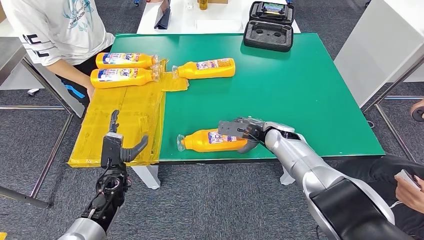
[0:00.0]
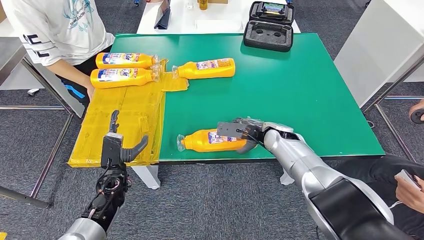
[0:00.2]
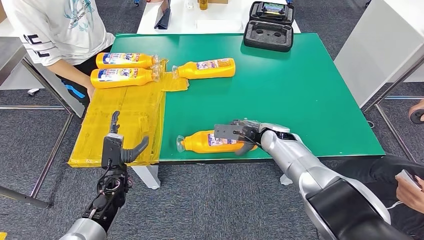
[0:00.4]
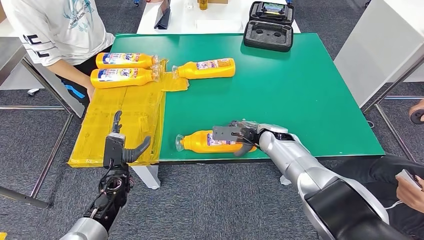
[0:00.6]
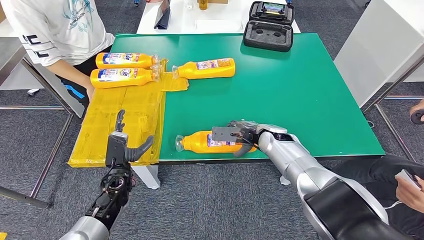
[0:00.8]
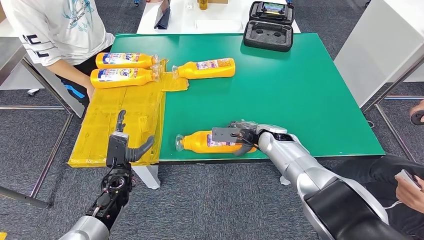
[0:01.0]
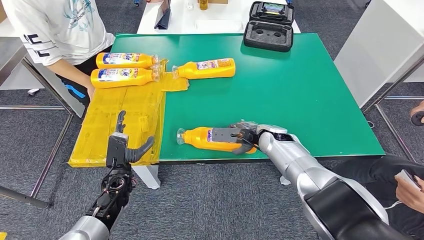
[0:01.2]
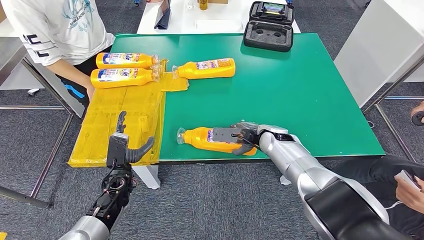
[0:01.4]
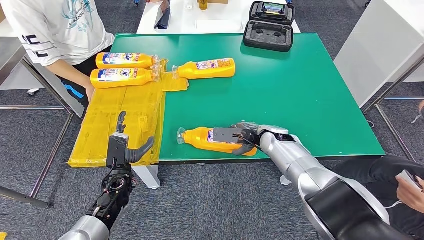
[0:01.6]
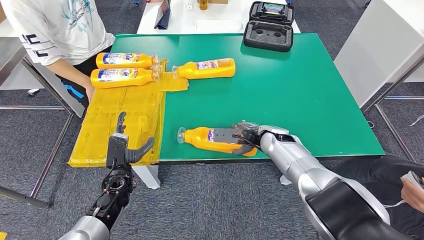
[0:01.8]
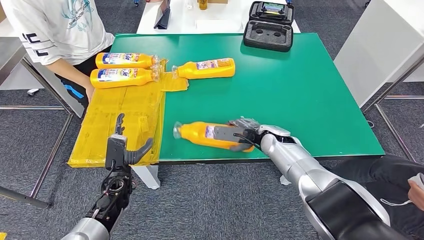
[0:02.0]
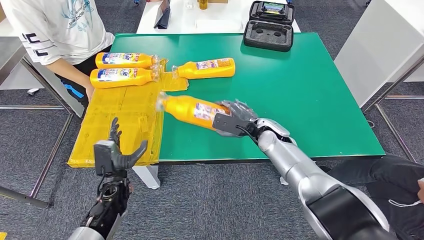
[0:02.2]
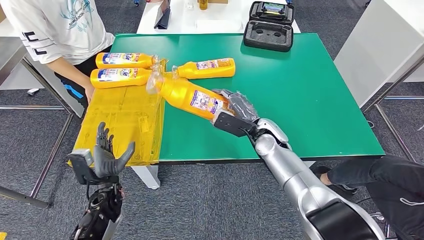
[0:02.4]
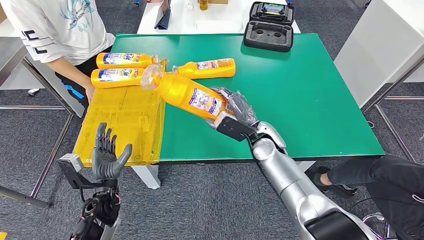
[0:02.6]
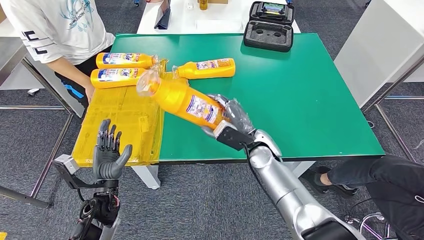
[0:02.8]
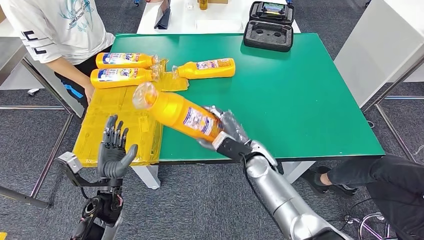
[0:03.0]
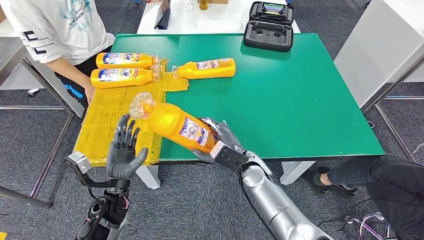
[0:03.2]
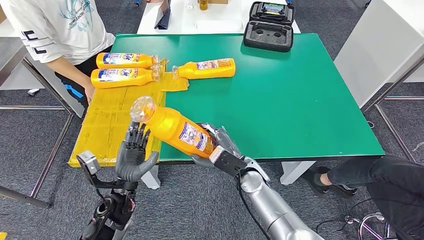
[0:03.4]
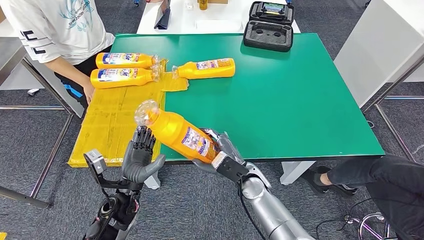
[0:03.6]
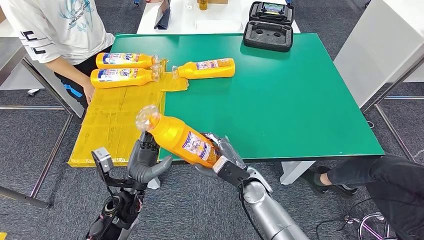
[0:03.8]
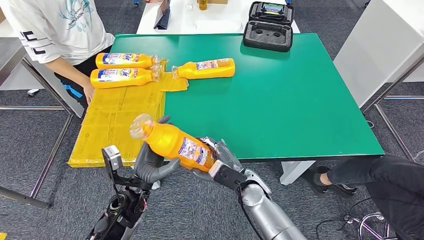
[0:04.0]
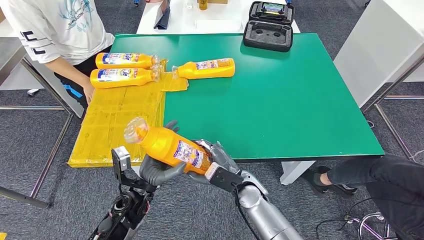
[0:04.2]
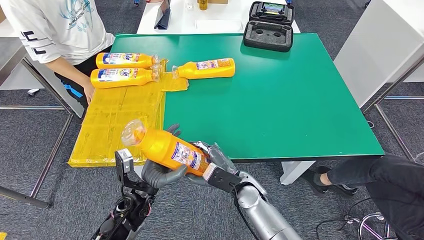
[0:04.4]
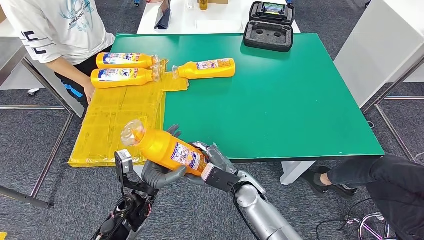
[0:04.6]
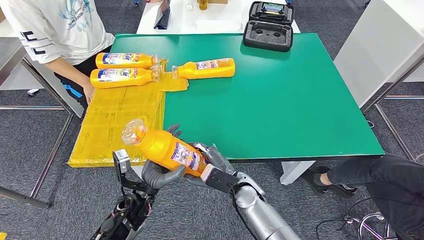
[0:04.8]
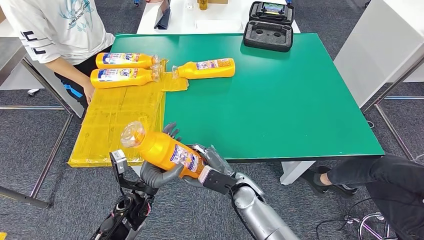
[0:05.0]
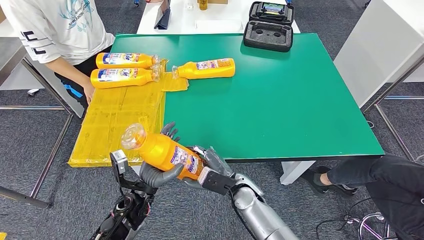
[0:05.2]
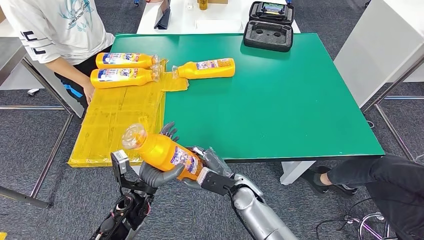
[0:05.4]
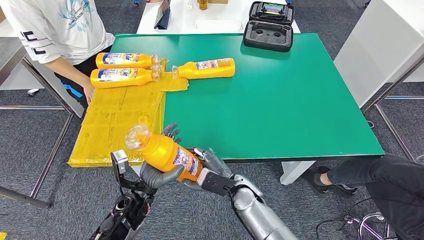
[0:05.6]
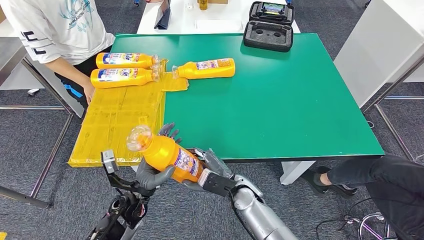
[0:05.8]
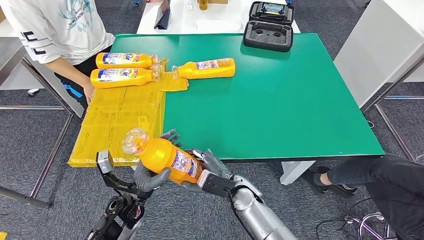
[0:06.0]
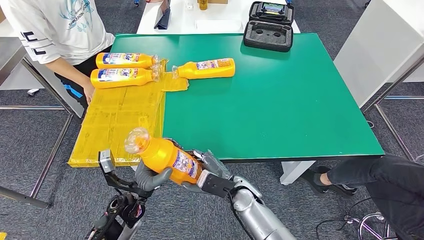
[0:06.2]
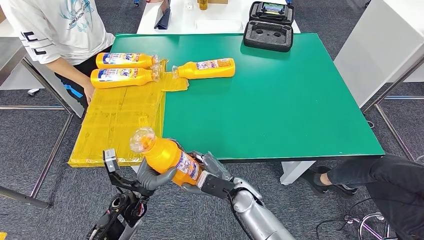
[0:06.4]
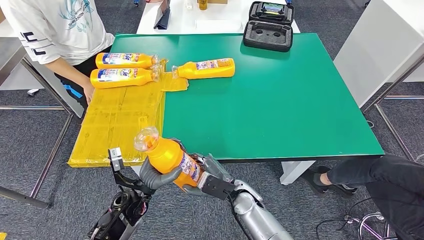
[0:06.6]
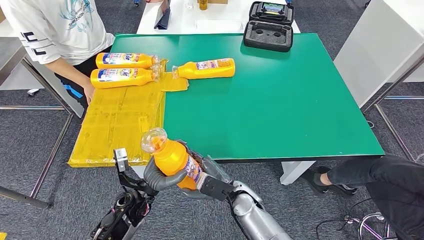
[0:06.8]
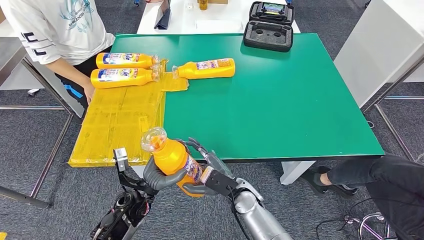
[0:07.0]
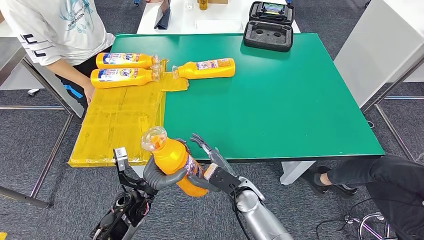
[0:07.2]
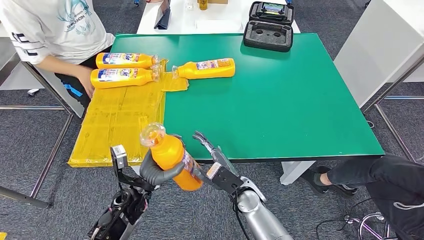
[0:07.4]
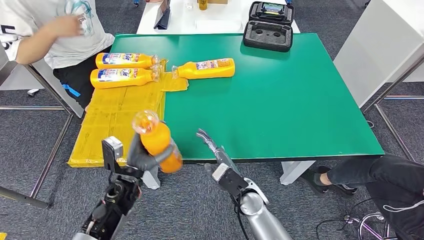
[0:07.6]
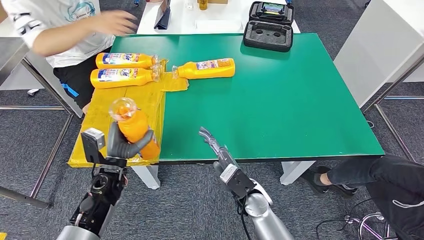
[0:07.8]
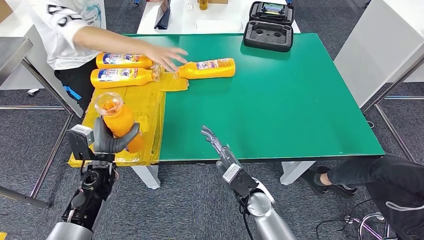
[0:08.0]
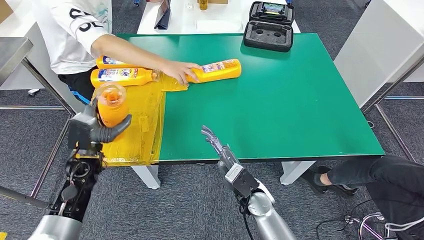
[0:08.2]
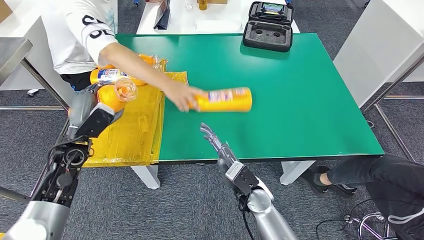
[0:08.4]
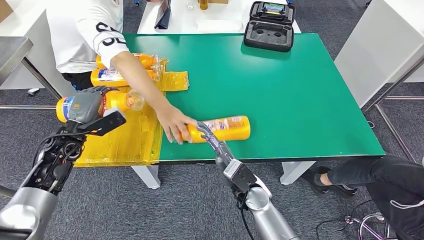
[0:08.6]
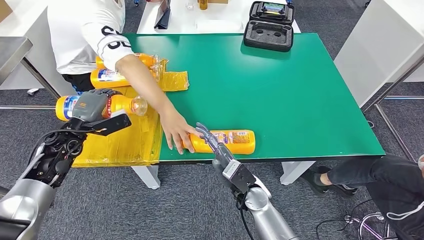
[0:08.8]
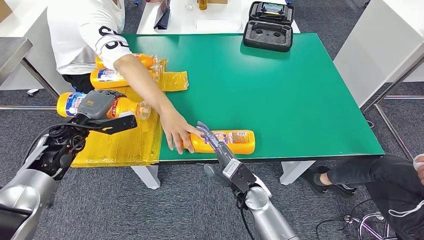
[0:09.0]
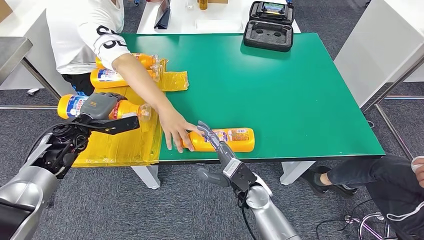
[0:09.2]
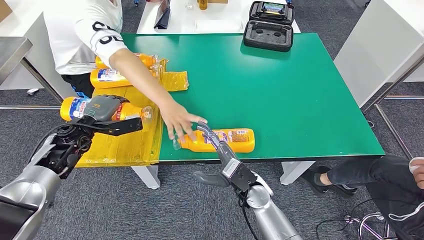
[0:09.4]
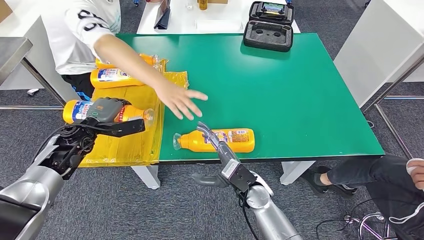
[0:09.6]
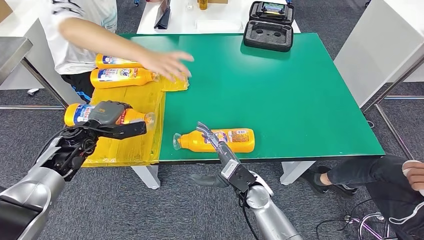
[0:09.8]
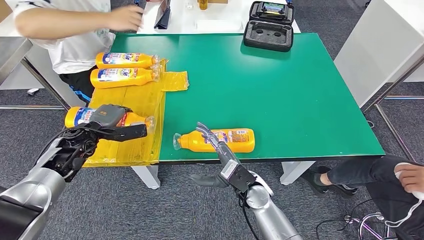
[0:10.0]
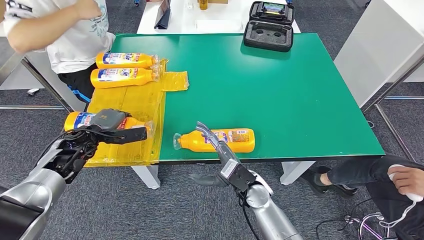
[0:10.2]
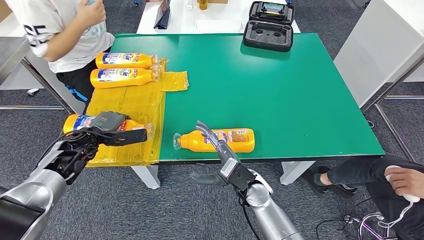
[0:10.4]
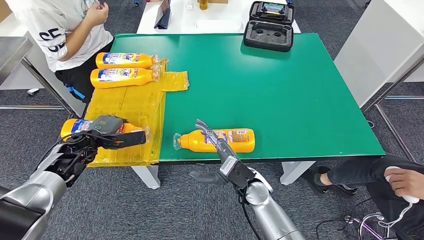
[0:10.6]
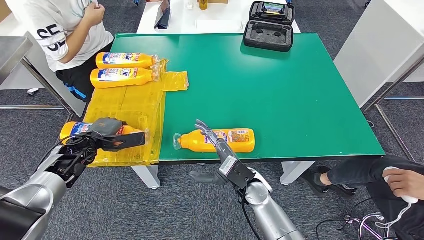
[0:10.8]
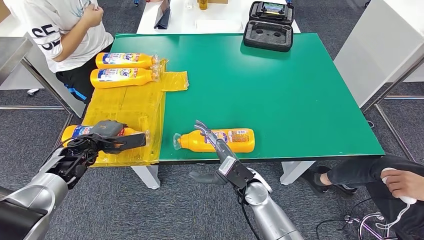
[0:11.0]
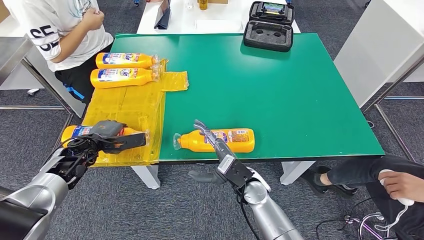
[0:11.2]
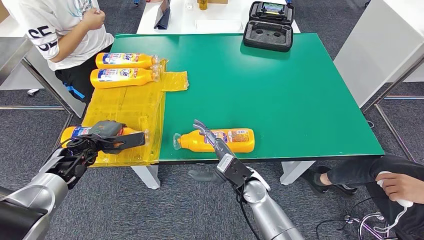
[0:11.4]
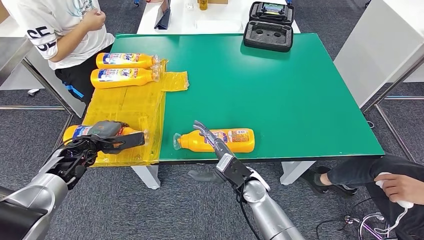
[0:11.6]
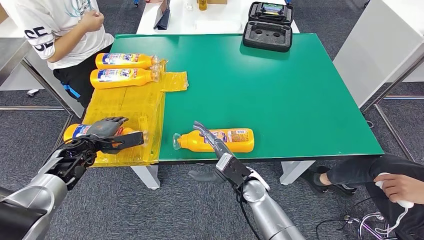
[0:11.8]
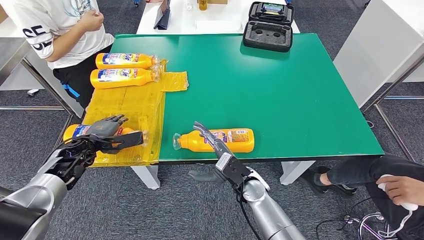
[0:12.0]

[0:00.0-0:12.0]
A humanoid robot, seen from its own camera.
Step, 0:00.0 to 0:03.6: Pick up the bottle from the table.
Step, 0:03.8 to 0:10.8: Flip the bottle to face forward.
0:00.0 to 0:01.6: The hands make only small movements.
0:01.6 to 0:03.0: The right hand moves backward and to the left, approximately 10 cm. Meanwhile the left hand is displaced backward by some 5 cm.
0:03.0 to 0:04.4: The right hand goes roughly 10 cm backward and downward, while the left hand goes some 10 cm to the right.
0:06.0 to 0:07.6: The left hand ends up some 5 cm from where it was.
0:10.4 to 0:12.0: The hands move only a little.

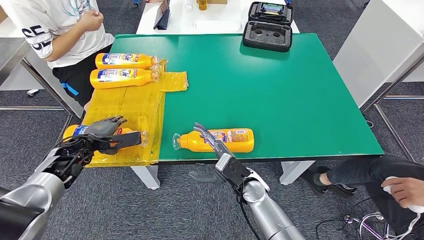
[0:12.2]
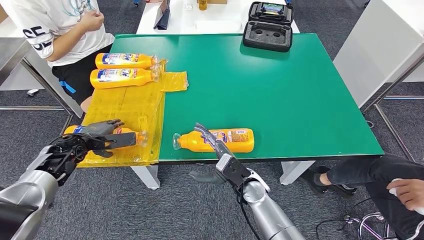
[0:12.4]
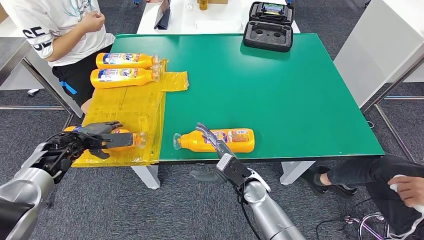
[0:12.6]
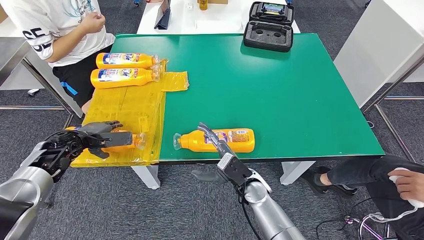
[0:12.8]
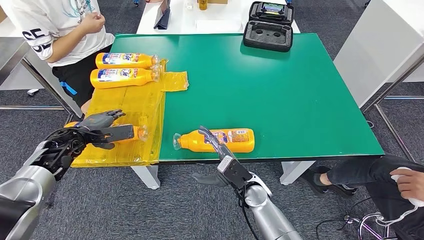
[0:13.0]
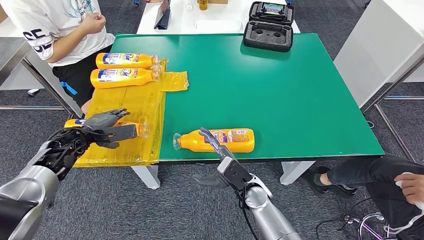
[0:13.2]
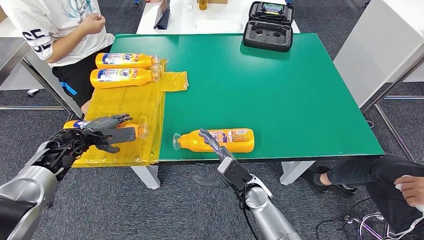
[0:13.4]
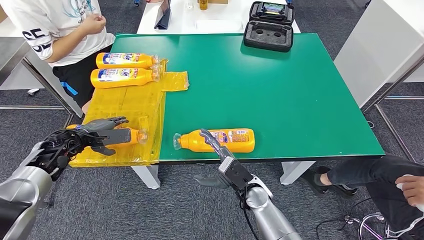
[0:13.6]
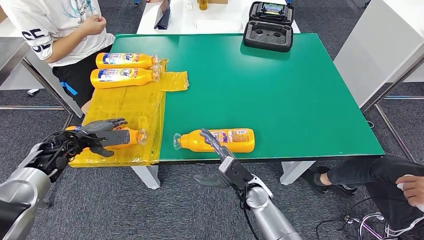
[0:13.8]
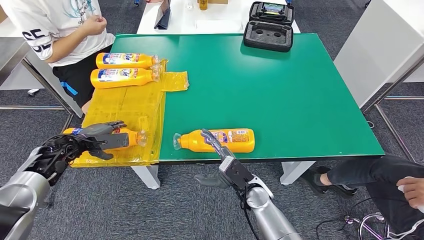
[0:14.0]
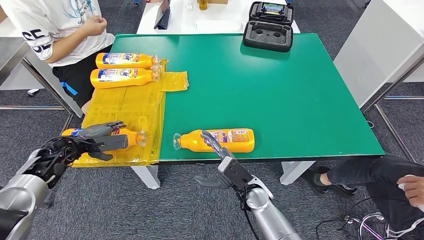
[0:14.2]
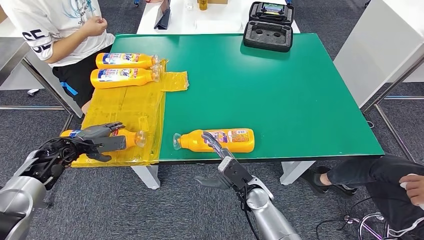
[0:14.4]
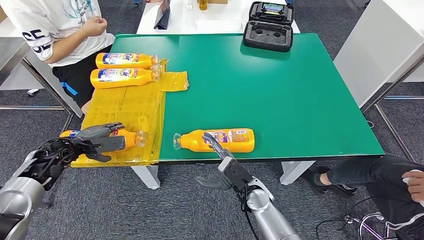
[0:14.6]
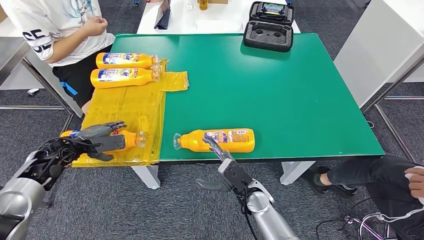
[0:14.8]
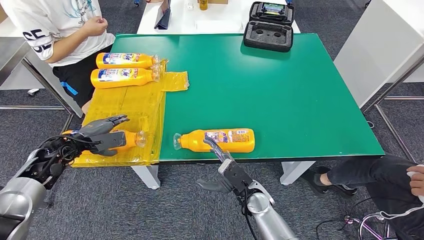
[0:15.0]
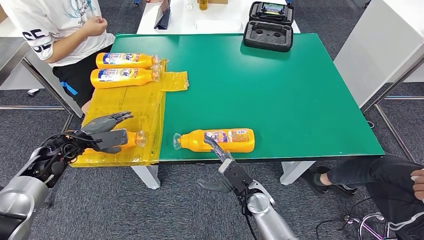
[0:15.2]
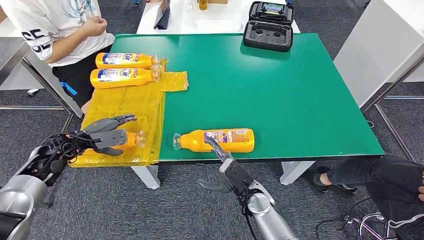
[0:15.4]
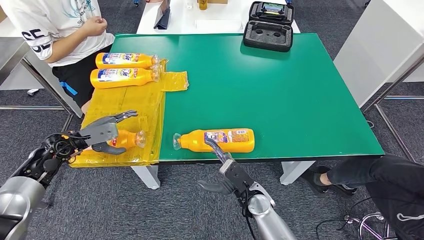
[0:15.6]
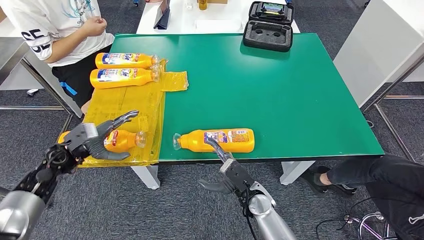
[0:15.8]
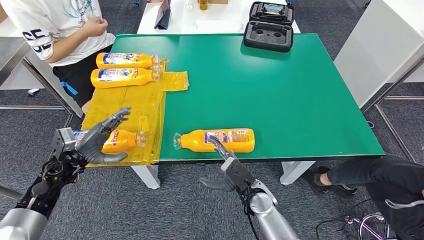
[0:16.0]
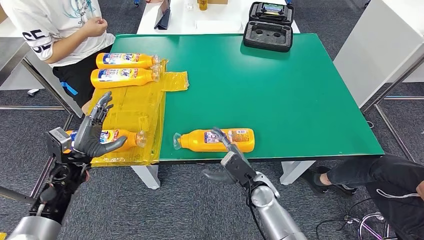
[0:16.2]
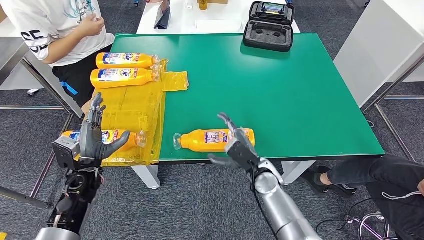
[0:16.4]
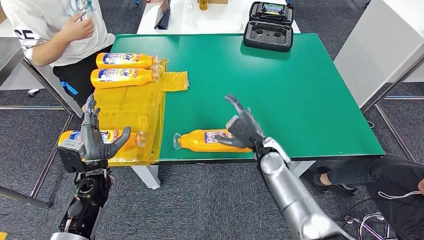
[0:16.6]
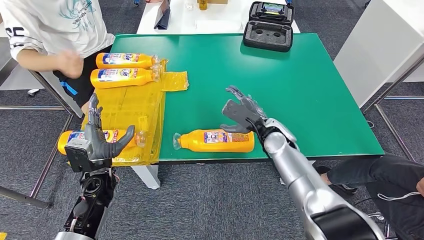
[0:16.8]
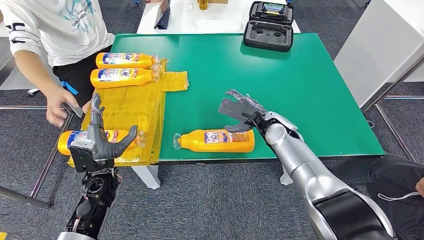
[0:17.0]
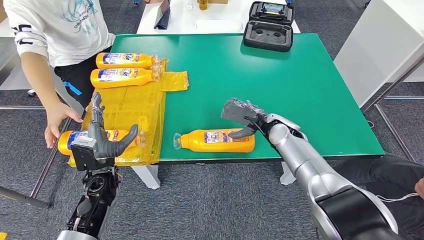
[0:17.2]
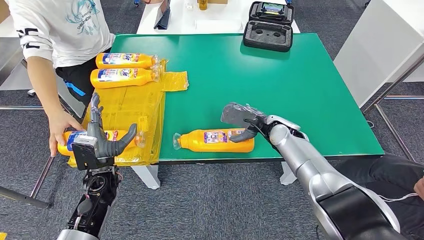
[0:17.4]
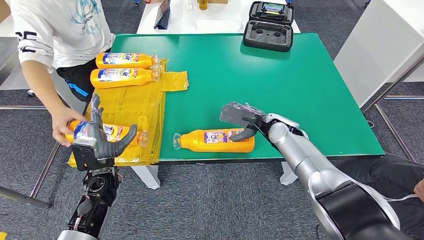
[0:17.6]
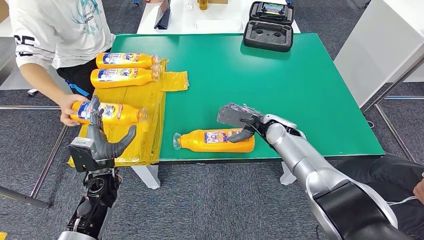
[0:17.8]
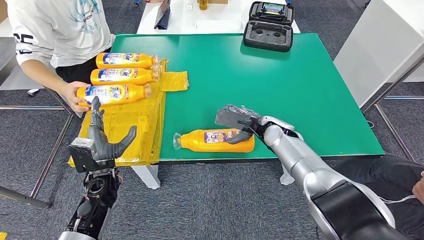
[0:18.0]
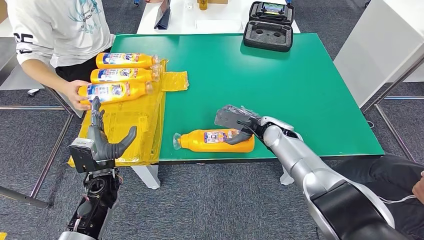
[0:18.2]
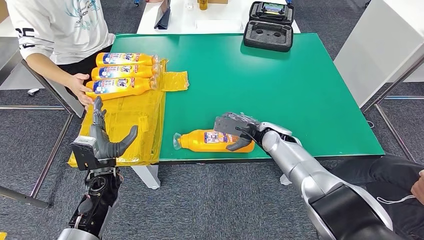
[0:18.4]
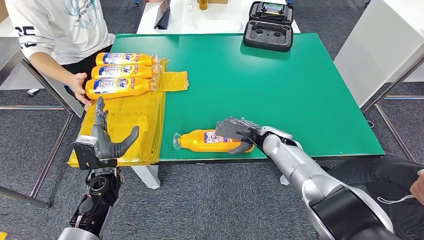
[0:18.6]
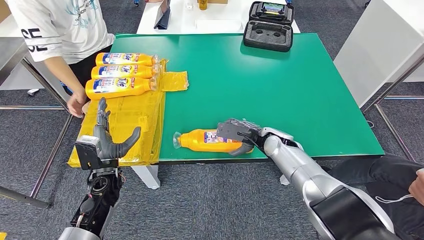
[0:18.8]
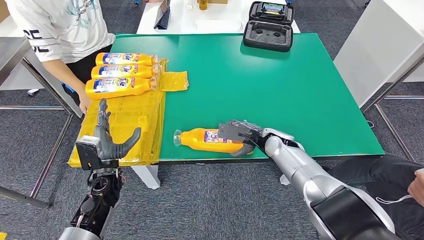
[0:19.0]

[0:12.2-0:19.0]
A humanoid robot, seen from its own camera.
0:12.2 to 0:15.0: There are only small adjustments of the hands.
0:15.0 to 0:16.2: The left hand travels backward by roughly 5 cm.
0:17.6 to 0:19.0: The hands stay close to where they were, moving slightly.
